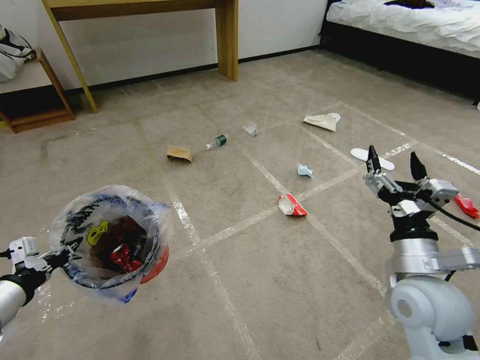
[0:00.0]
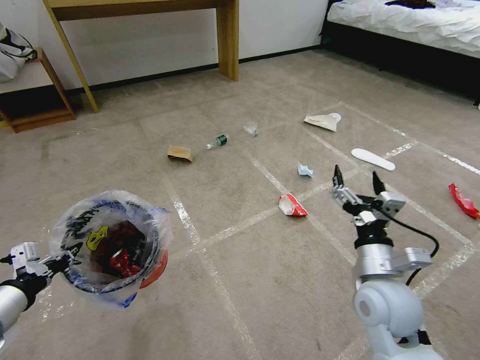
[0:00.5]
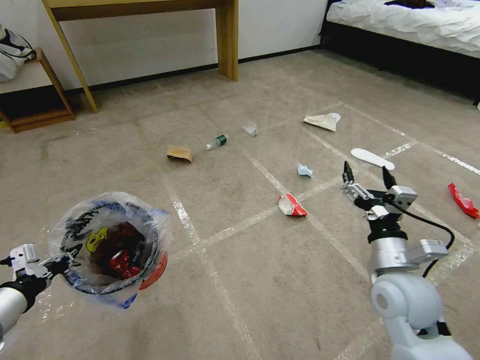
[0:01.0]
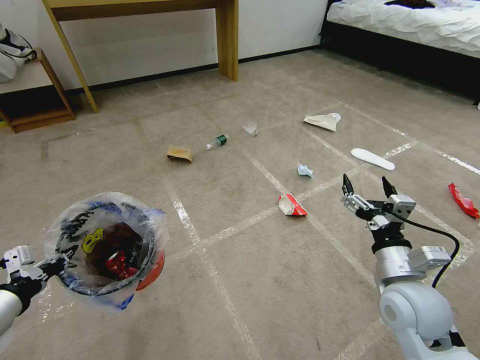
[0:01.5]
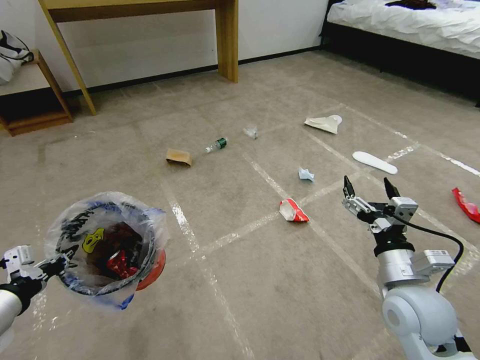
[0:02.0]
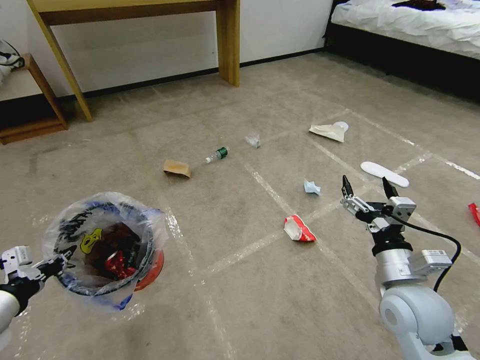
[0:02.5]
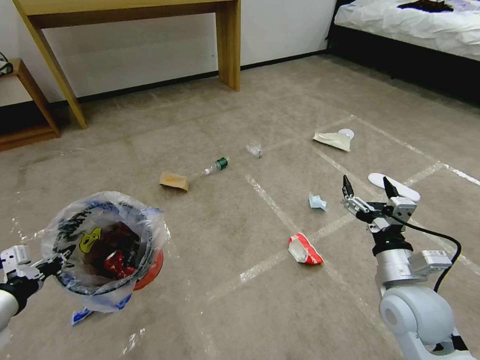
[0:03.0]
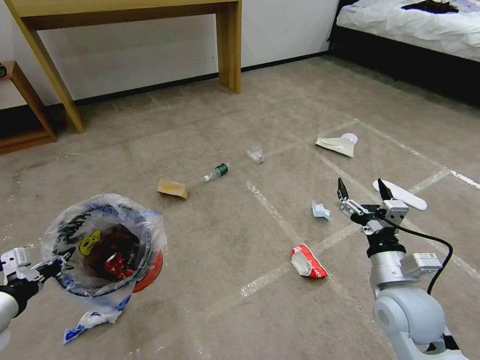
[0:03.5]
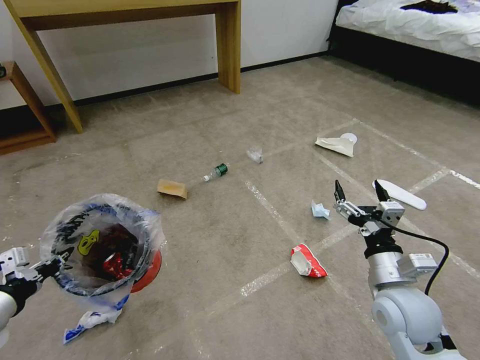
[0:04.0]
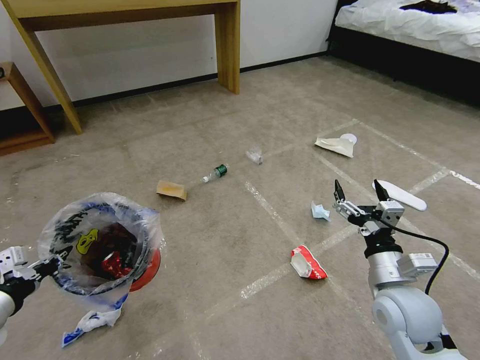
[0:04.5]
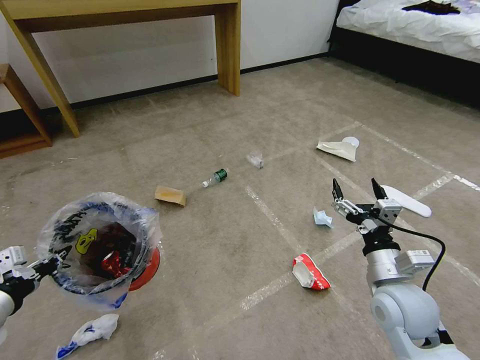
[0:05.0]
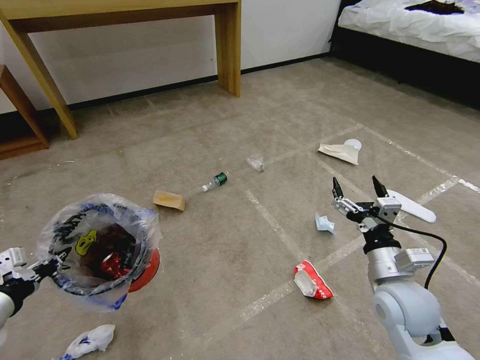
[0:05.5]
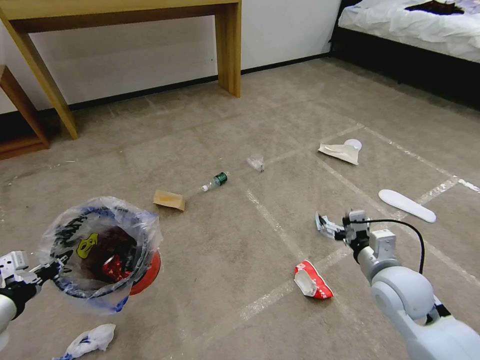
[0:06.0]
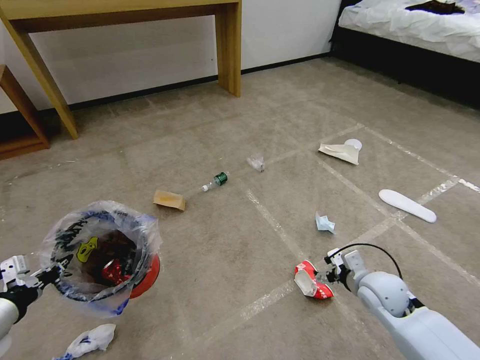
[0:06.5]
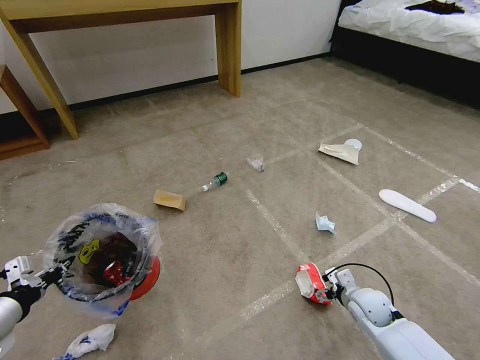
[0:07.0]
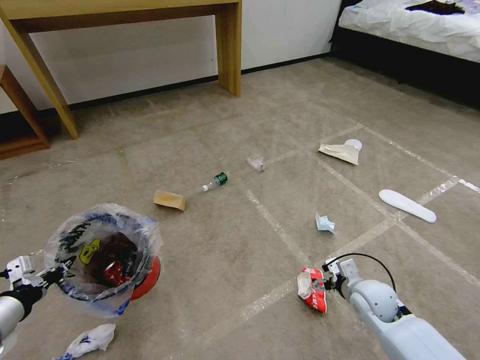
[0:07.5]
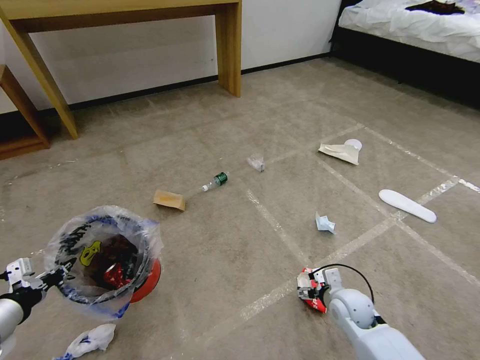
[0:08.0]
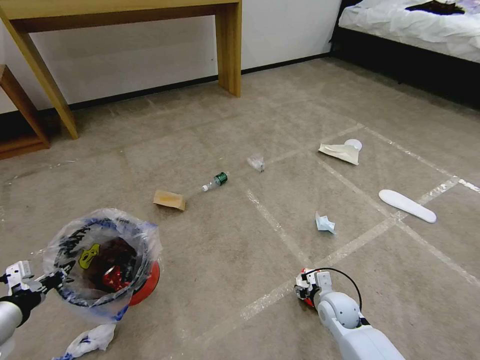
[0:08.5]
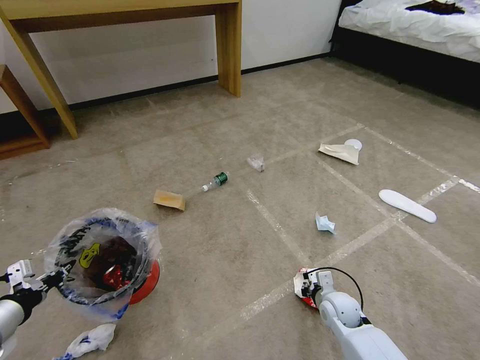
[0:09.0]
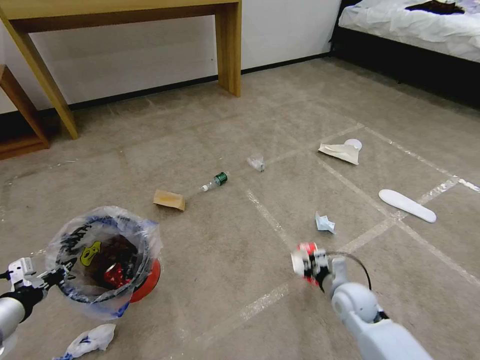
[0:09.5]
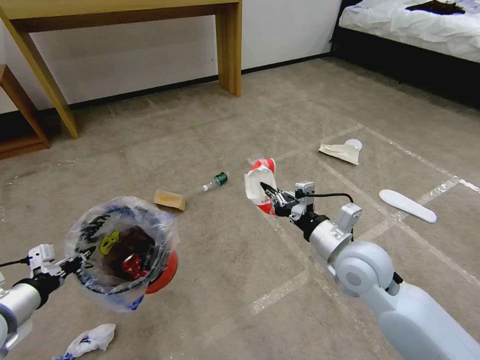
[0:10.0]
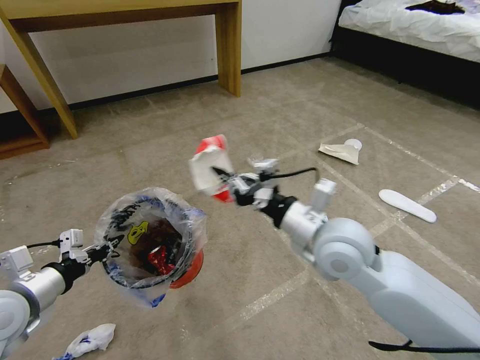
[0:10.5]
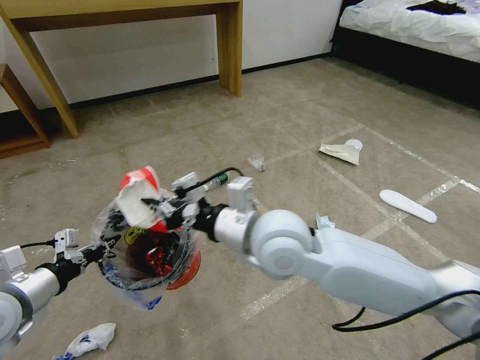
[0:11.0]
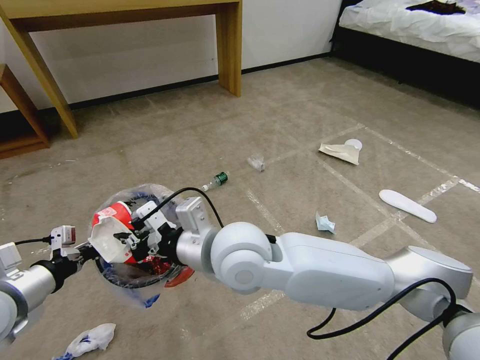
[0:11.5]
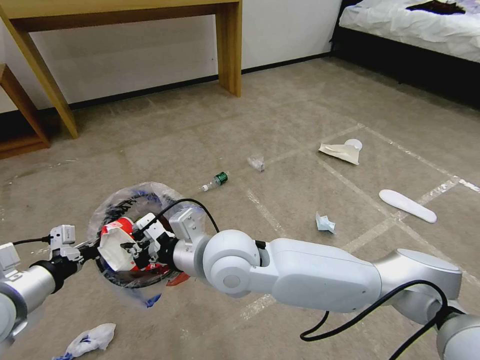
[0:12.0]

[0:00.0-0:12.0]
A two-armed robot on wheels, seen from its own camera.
Task of the whole recording: Pick up the trash bin and place the garbage on the floor into it.
0:06.0 to 0:08.0: The right gripper is displaced downward by approximately 15 cm.
0:08.0 to 0:10.0: The right gripper is displaced upward by about 20 cm, and closes its fingers.
0:10.0 to 0:12.0: The right gripper is displaced to the left by approximately 25 cm, while the left gripper changes place by some 5 cm.

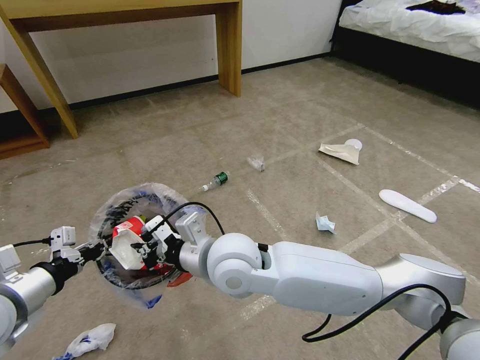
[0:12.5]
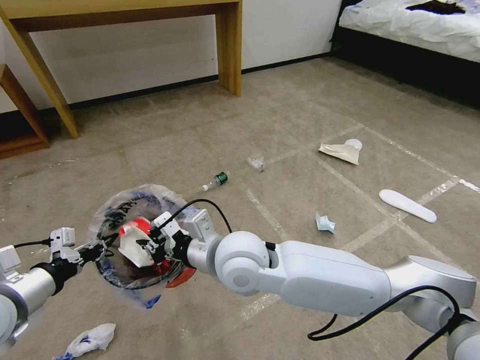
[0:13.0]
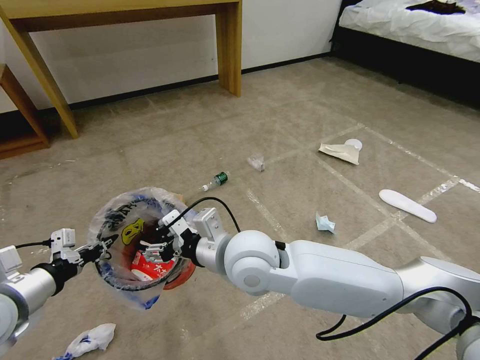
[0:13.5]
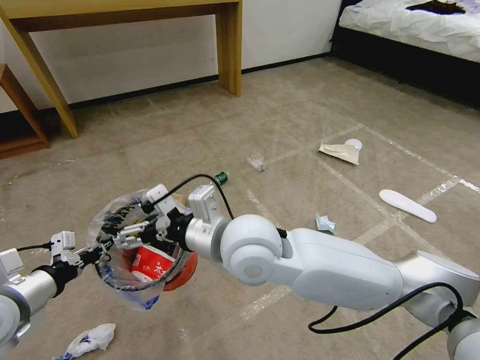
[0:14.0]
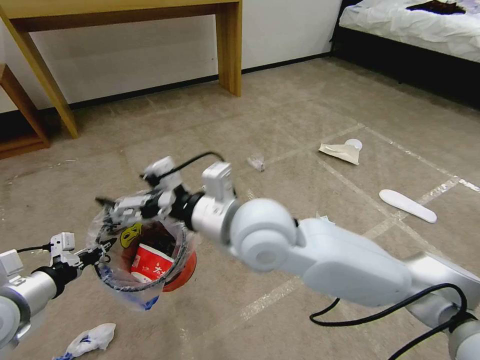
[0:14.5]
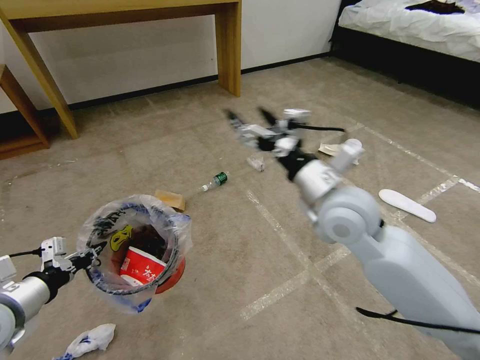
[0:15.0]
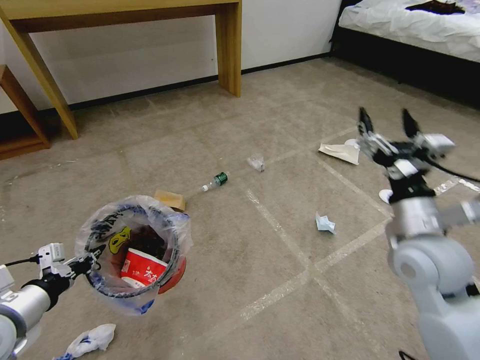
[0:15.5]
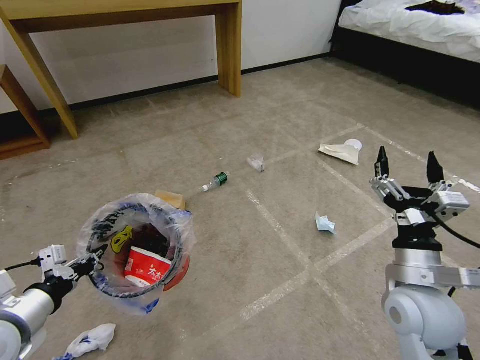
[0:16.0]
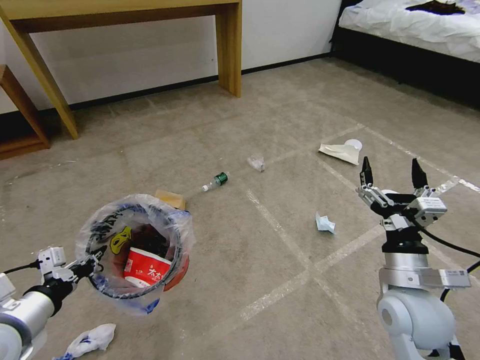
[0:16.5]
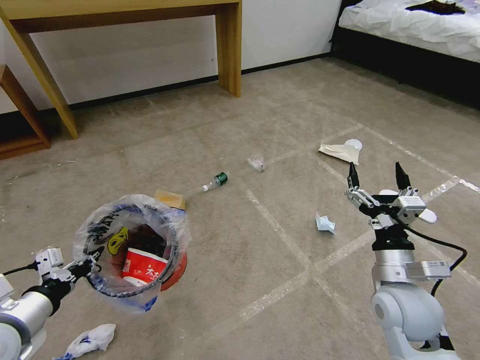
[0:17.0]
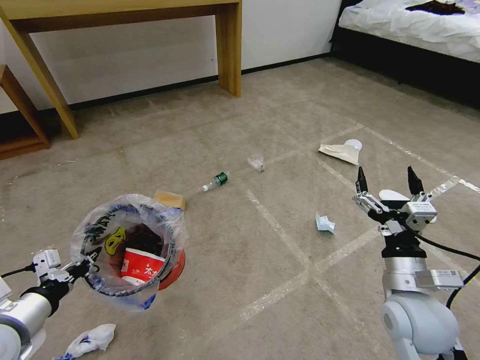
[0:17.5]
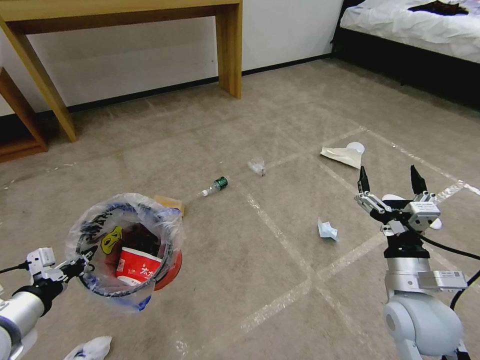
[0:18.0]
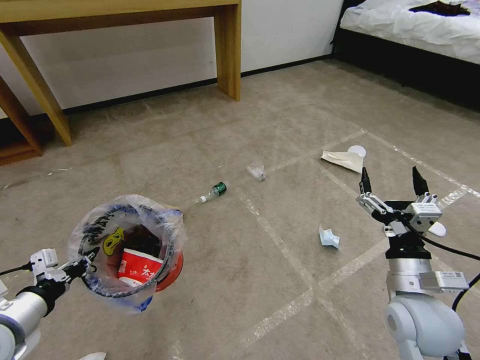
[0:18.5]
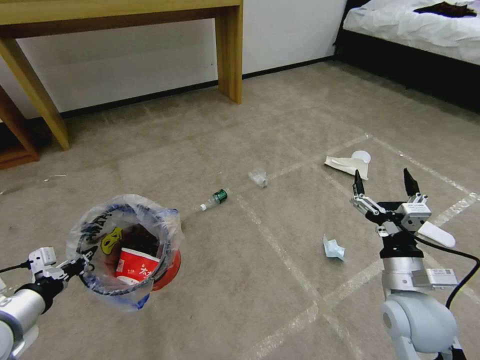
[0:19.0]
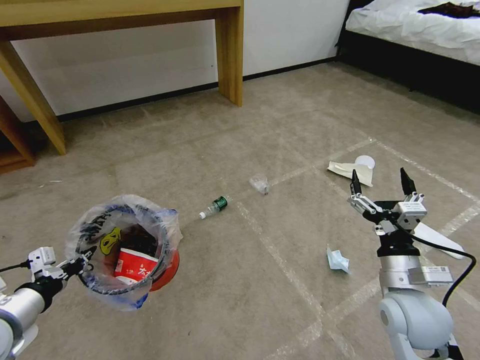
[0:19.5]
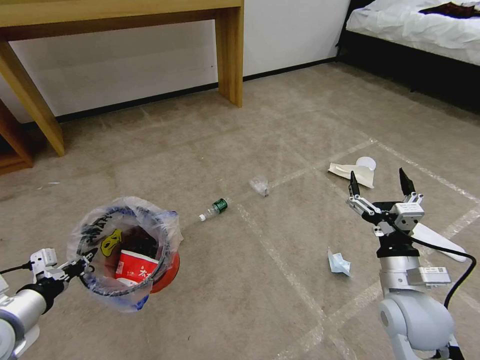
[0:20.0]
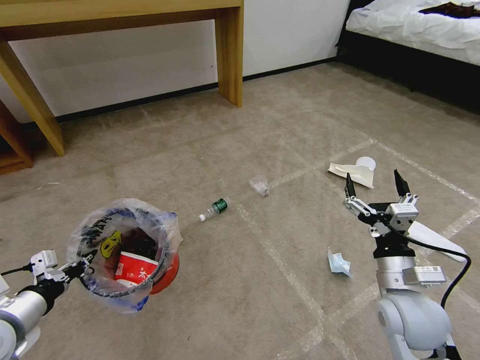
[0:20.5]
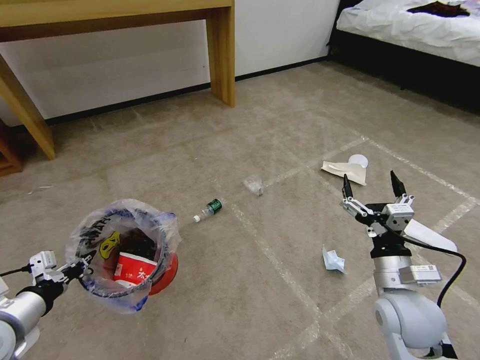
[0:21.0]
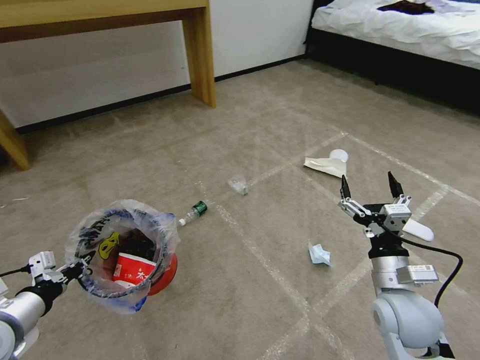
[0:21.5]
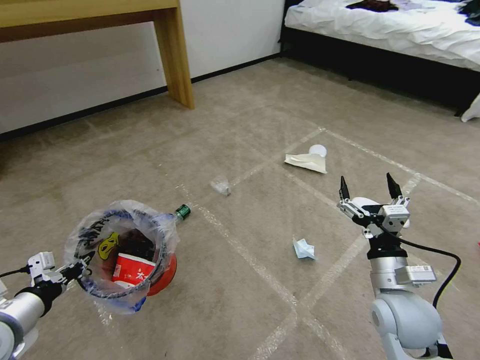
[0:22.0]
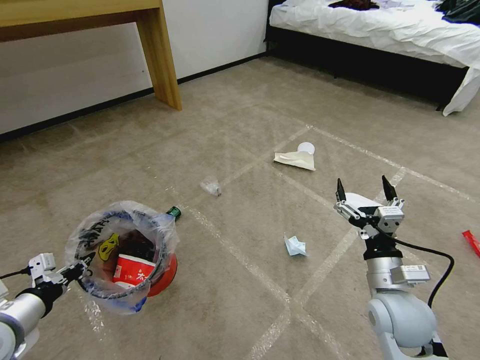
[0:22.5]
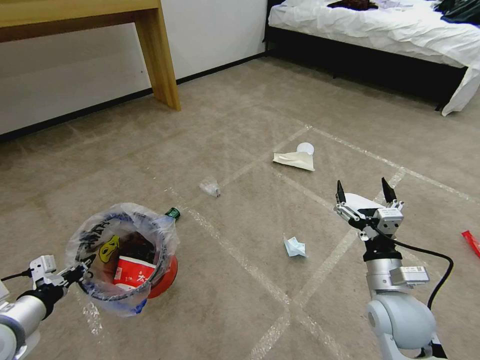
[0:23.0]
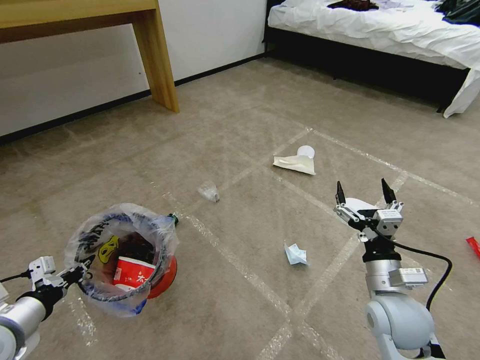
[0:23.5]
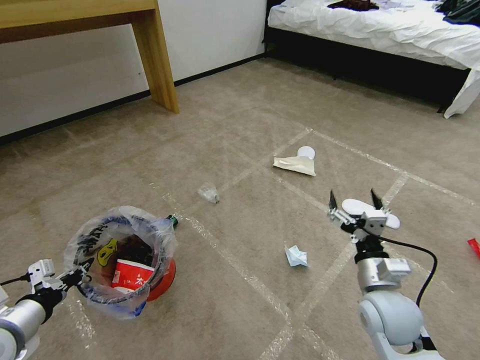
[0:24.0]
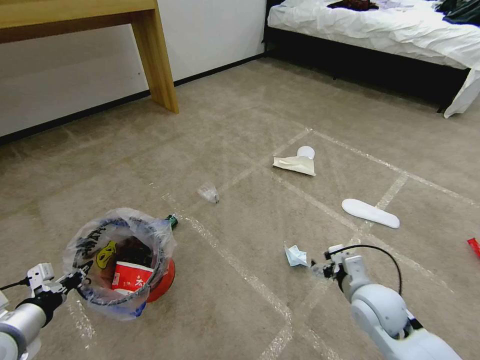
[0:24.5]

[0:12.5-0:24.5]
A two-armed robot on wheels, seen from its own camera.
Task of the whole recording: Pick up the trash bin and place the garbage on the floor into it.
0:12.5 to 0:14.5: The right gripper moves upward and to the right, roughly 10 cm, and opens its fingers.
0:14.5 to 0:16.5: The right gripper travels to the right and downward by roughly 30 cm.
0:16.5 to 0:20.5: There are only small adjustments of the grippers.
0:22.5 to 0:24.5: The right gripper changes place by about 5 cm.

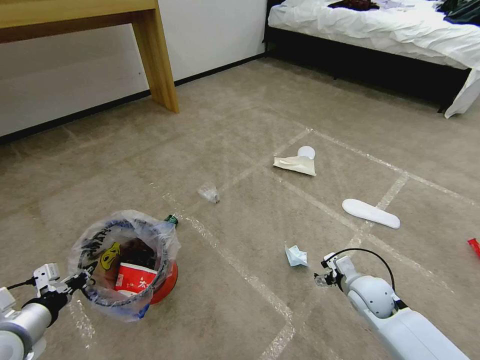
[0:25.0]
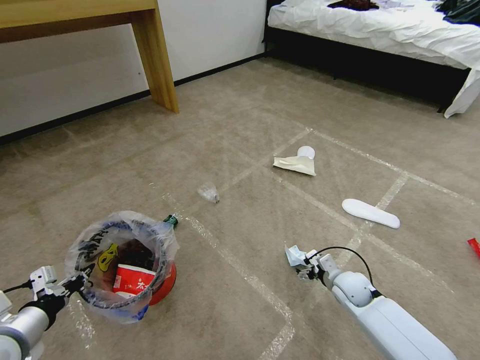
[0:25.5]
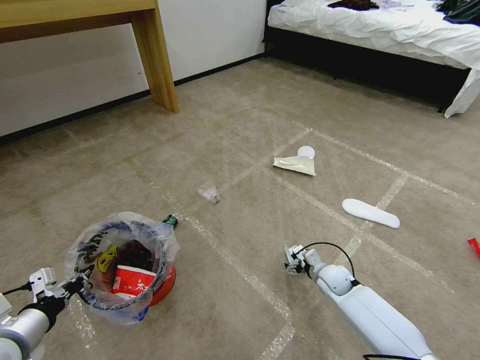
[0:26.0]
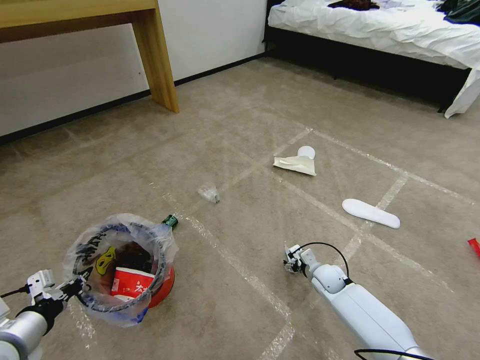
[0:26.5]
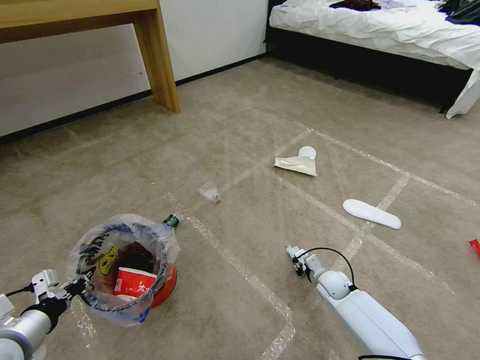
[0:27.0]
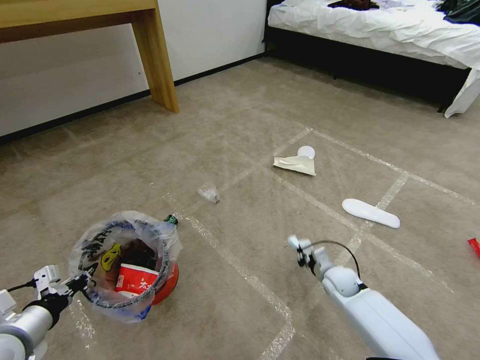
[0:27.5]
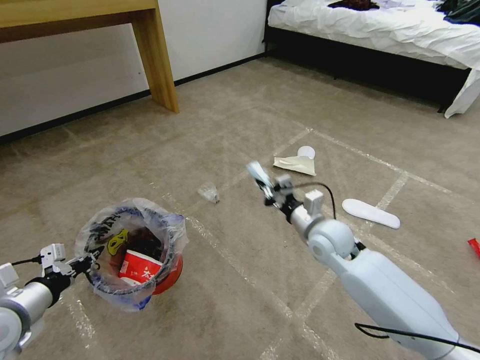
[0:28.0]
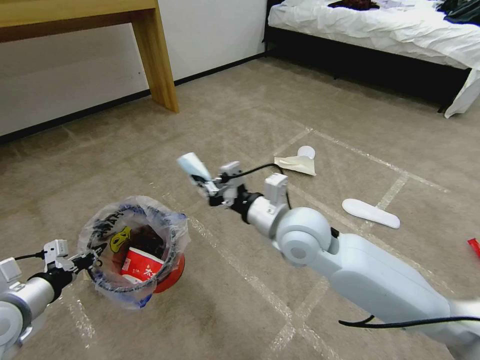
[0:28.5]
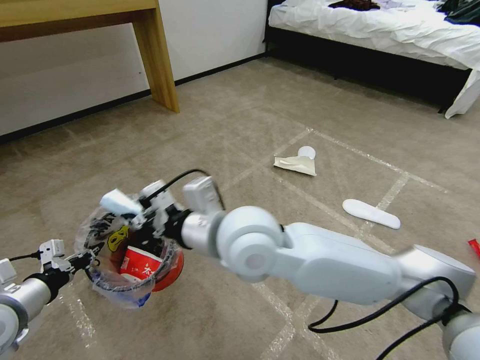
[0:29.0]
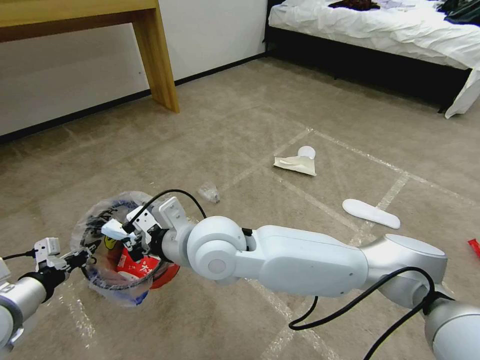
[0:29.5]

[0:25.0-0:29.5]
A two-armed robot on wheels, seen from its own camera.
Task of the whole recording: Pick up the trash bin and place the garbage on the floor into it.
0:25.0 to 0:27.0: The right gripper travels downward and forward by about 15 cm, and closes its fingers.
0:27.0 to 0:29.5: The right gripper heads upward and to the left, covering roughly 50 cm. The left gripper is displaced upward by some 5 cm.
